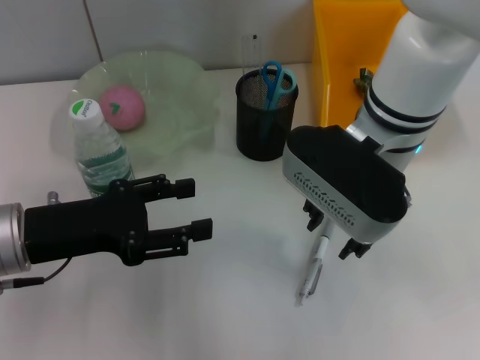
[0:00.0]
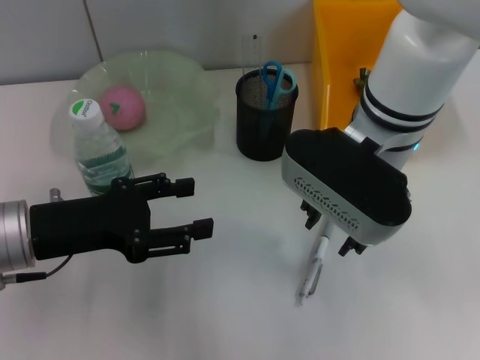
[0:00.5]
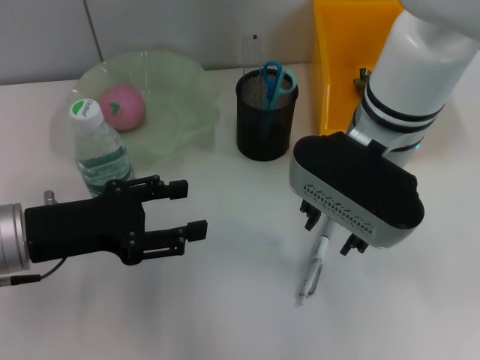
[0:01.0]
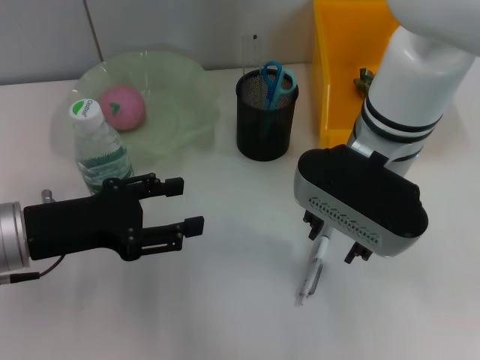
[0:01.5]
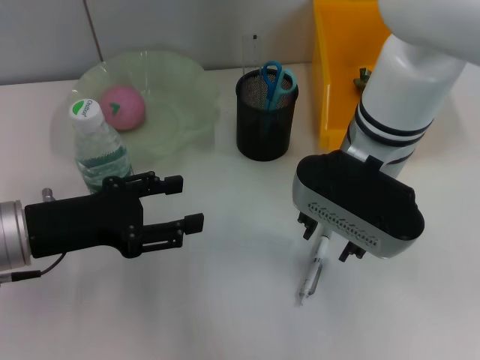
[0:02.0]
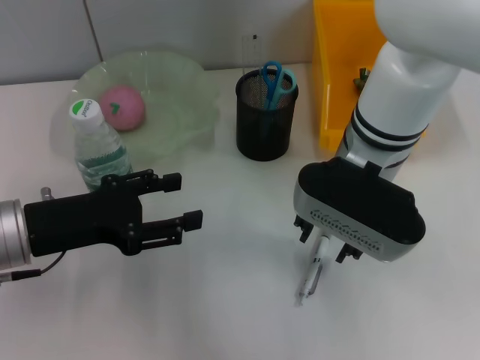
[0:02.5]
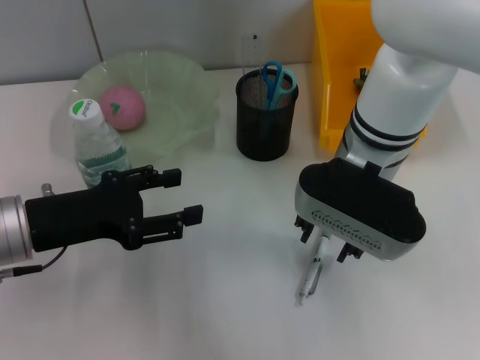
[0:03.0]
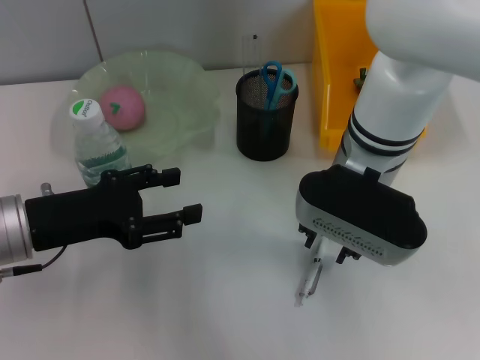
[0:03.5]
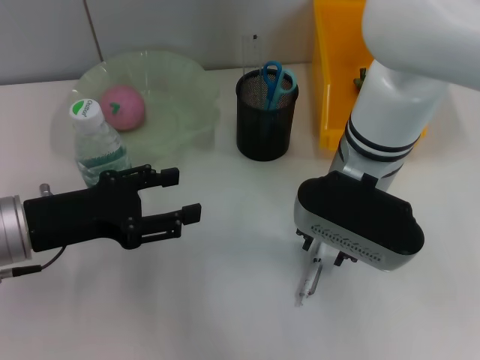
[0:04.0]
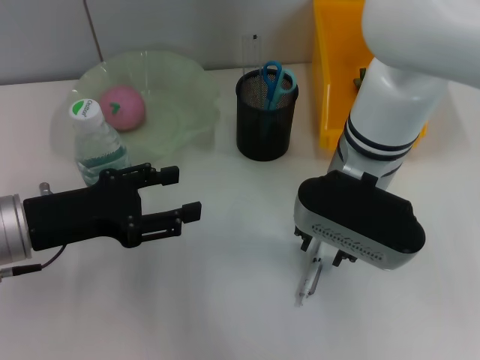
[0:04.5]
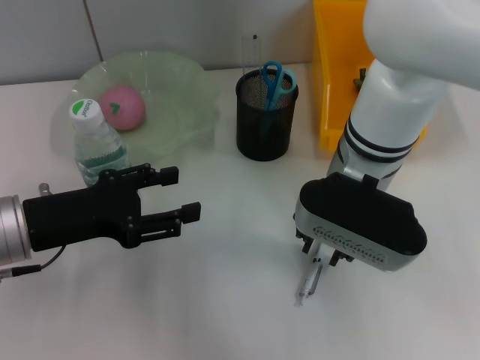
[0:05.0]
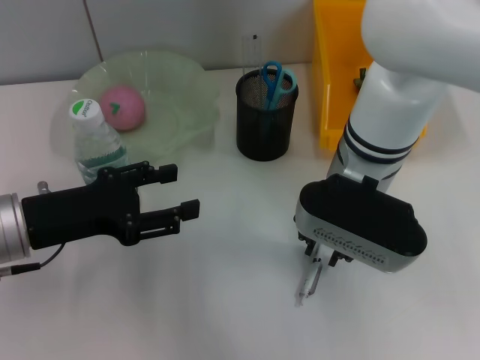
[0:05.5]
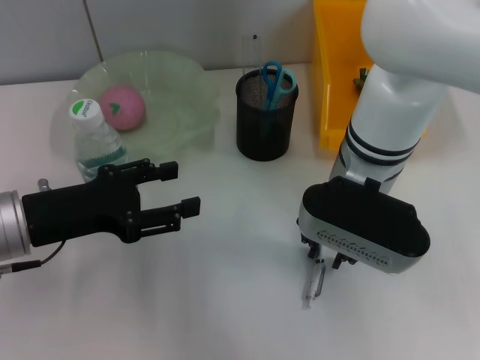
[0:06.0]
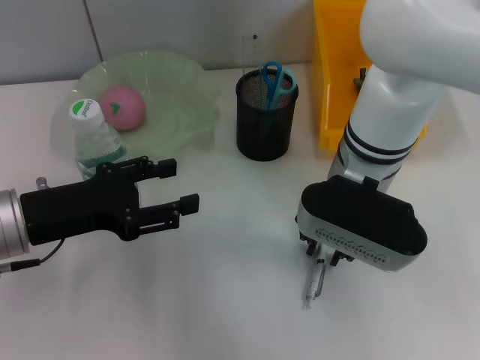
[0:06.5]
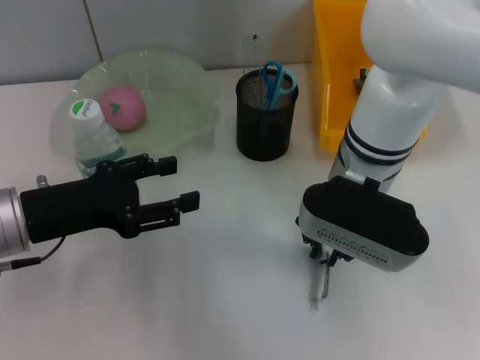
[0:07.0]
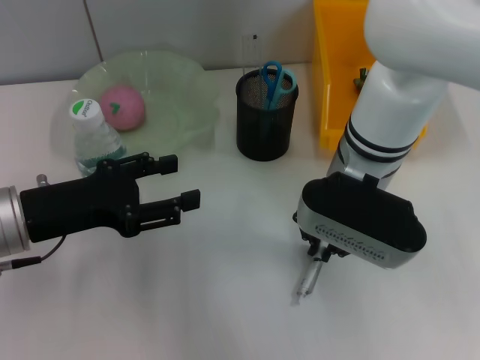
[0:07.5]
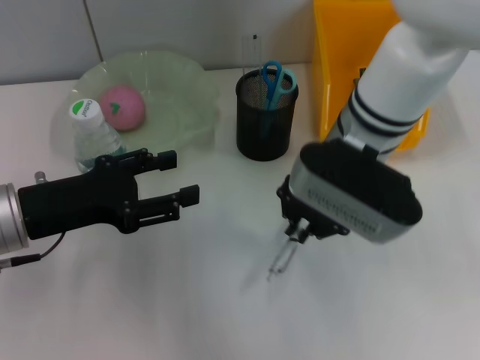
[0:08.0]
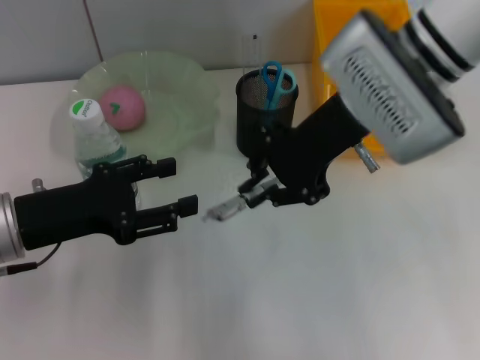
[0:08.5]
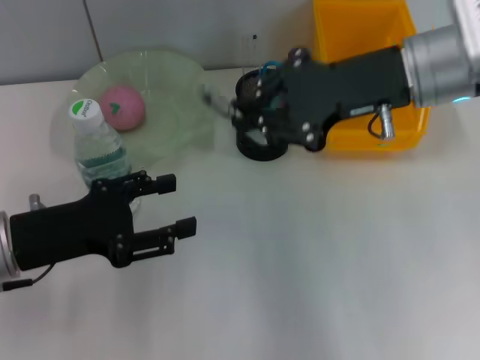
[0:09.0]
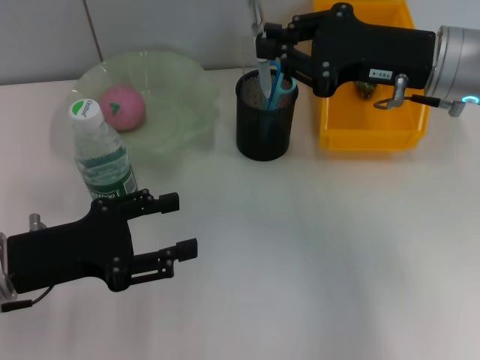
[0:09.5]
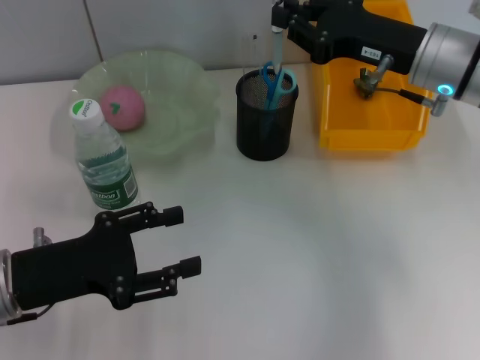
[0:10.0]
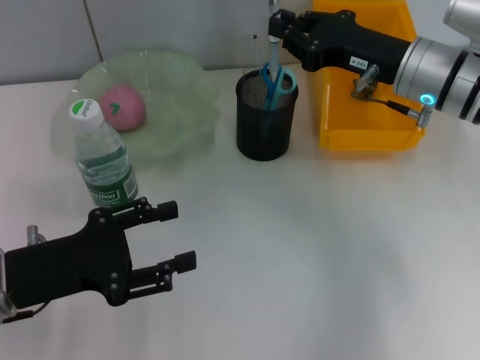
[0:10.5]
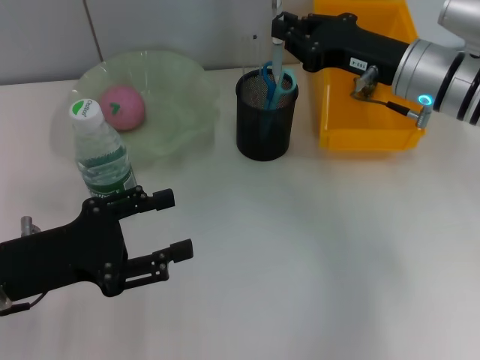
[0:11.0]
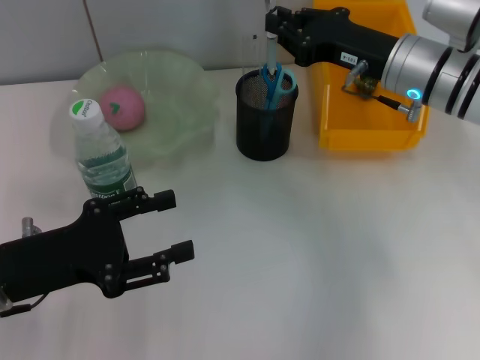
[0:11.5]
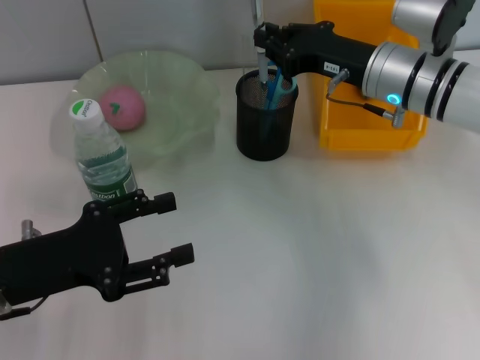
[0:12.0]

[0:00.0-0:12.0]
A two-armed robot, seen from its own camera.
Step, 0:00.0 to 0:07.0: Grab the gray spring-action pen with the right hand.
0:00.0 to 0:04.0: The grippers move only a little.
0:04.0 to 0:06.0: Neither gripper changes place.
0:06.0 to 0:08.0: There are only small adjustments of the grippers.
0:08.0 to 0:10.0: The right gripper travels to the right by approximately 10 cm; the left gripper ends up roughly 5 cm from where it was.
0:10.0 to 0:12.0: The right gripper ends up some 5 cm from where it was.

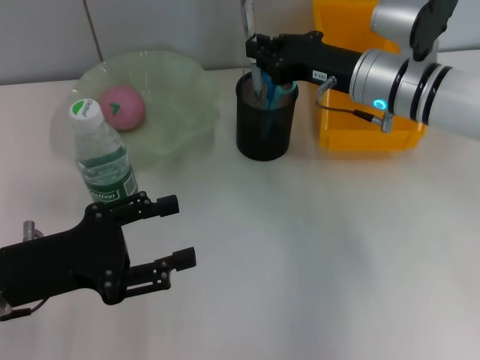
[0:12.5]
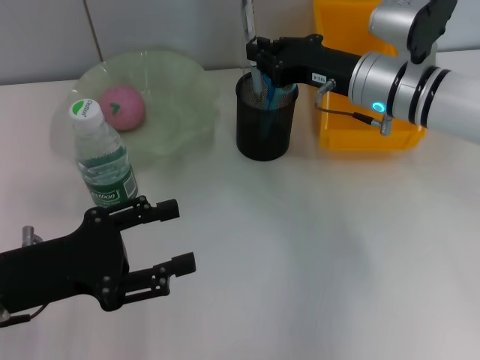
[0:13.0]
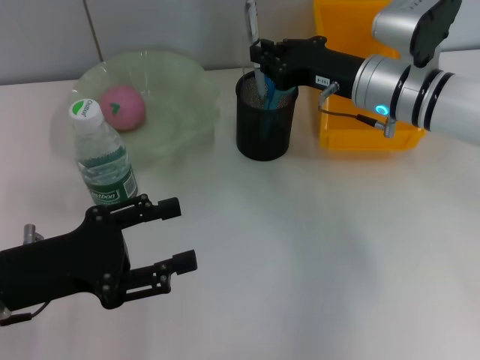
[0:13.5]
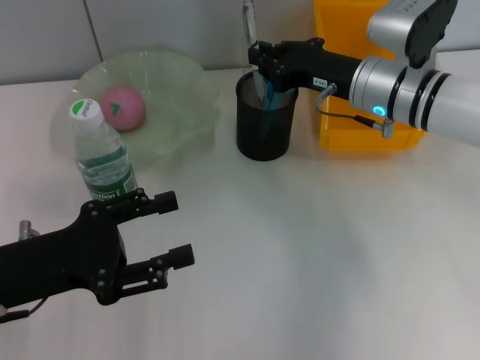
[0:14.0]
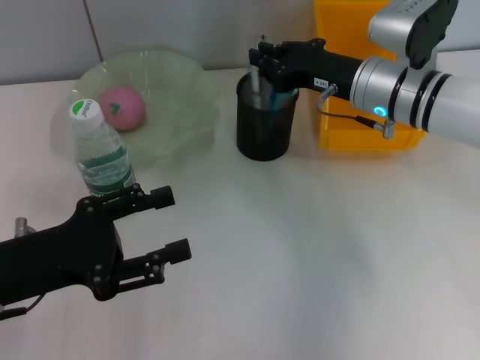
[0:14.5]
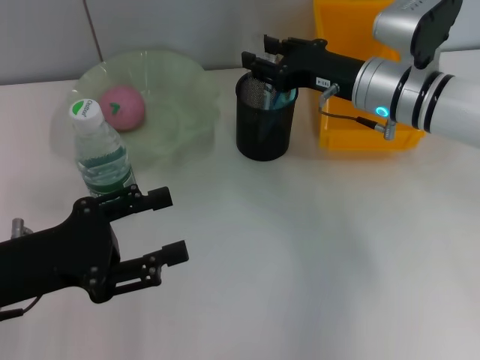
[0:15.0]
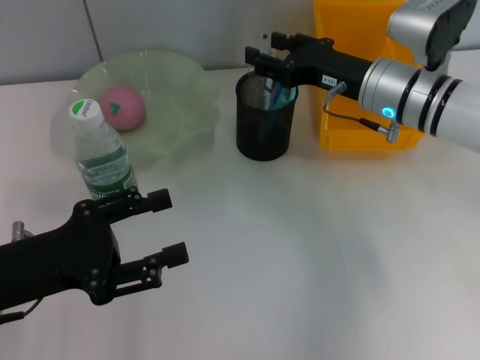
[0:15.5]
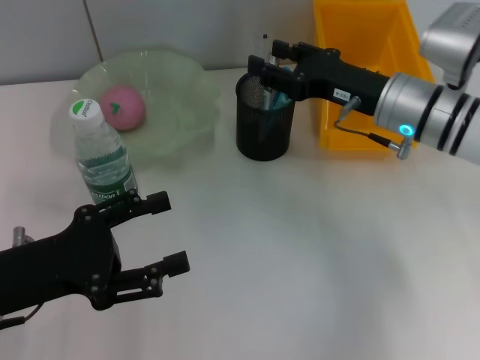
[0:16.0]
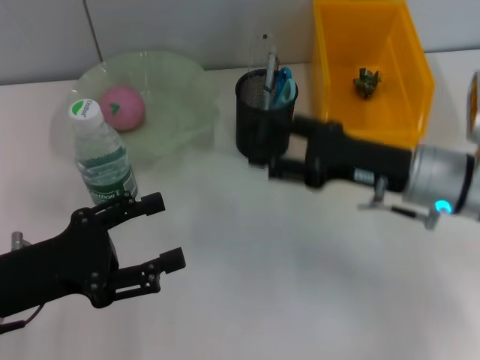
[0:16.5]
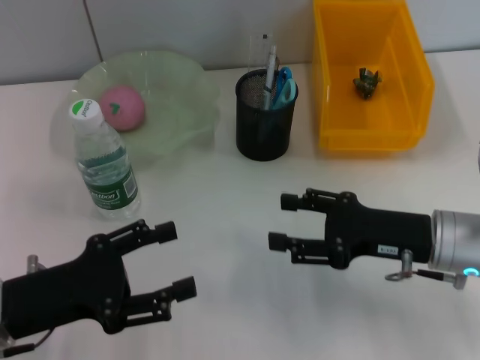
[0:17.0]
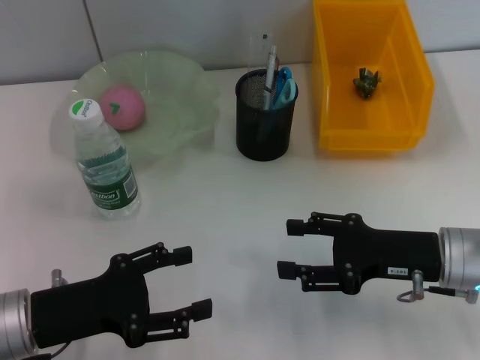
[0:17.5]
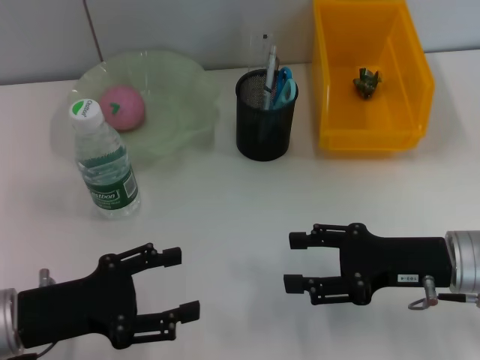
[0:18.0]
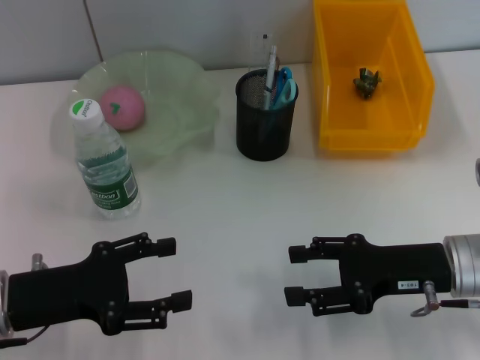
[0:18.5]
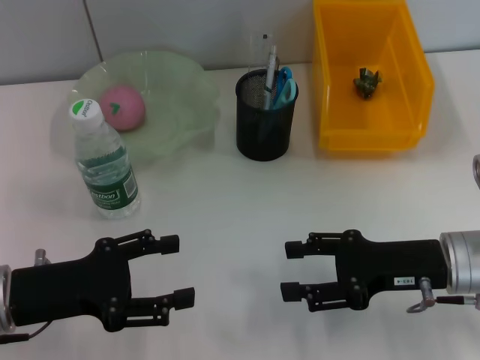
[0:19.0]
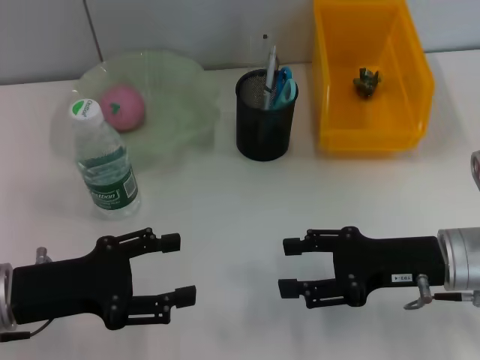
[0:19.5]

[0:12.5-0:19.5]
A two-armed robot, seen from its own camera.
Step, 0:12.5 to 0:14.5: Place the gray spring-action pen into the pen holder with the right hand.
0:12.5 to 0:14.5: Neither gripper changes place.
0:14.5 to 0:16.0: The right gripper opens.
0:16.0 to 0:17.5: The right gripper shifts about 15 cm backward and downward.
0:17.5 to 0:19.5: The grippers stay close to where they were, moving slightly.

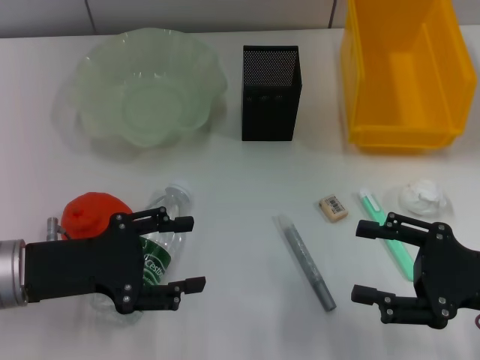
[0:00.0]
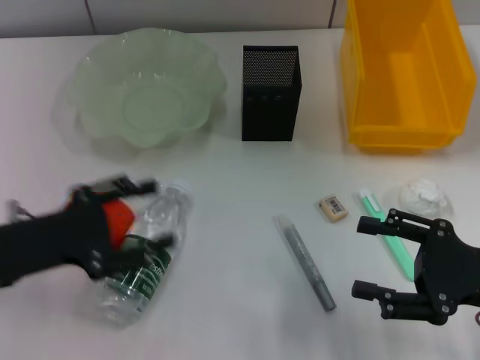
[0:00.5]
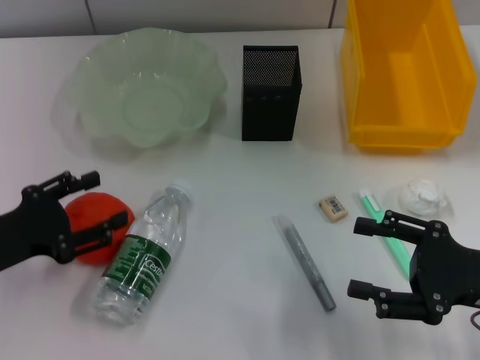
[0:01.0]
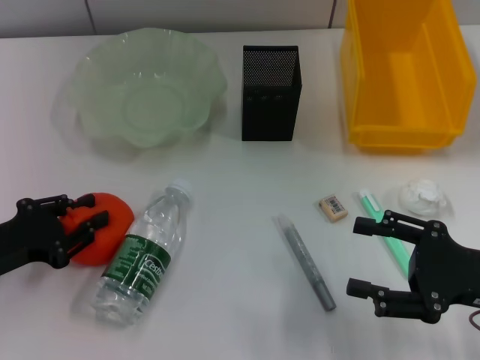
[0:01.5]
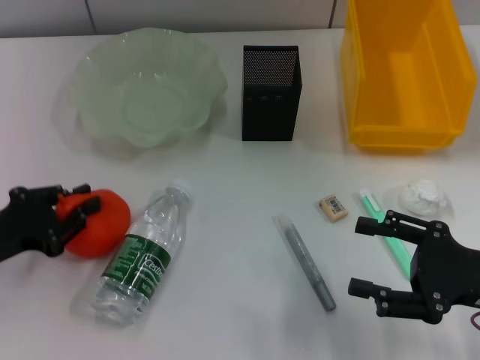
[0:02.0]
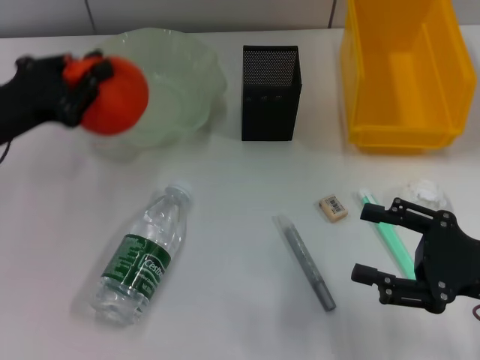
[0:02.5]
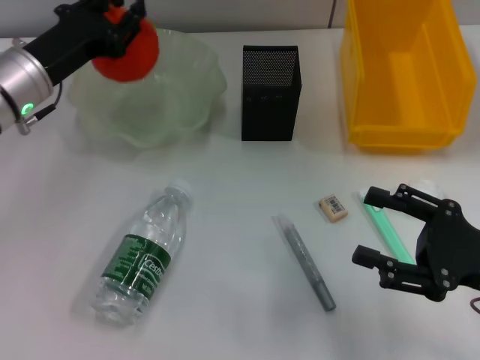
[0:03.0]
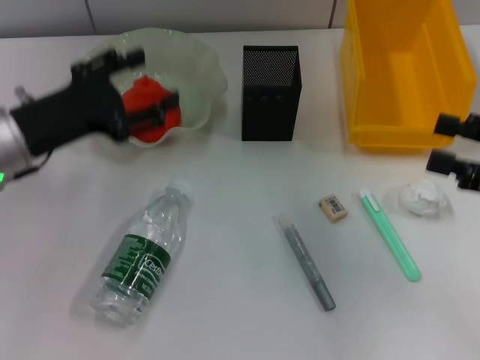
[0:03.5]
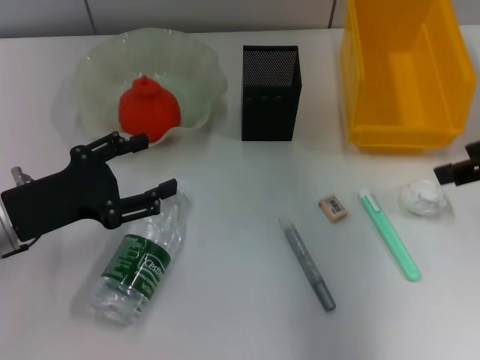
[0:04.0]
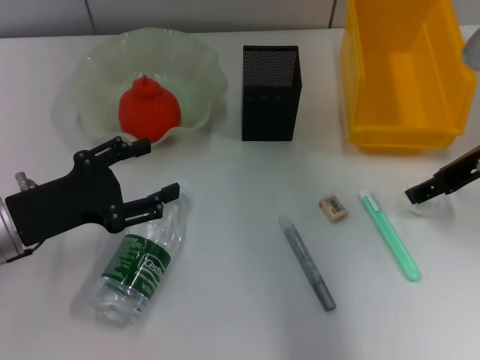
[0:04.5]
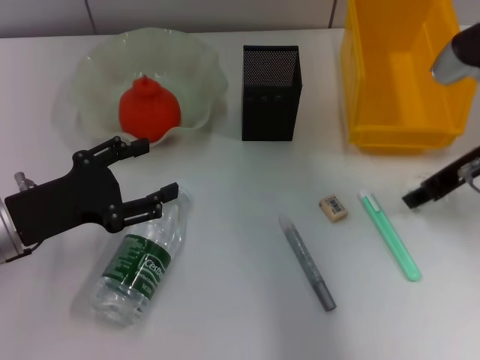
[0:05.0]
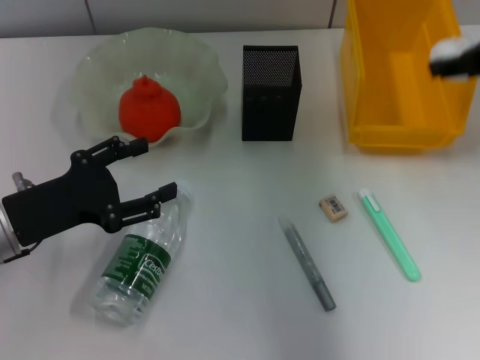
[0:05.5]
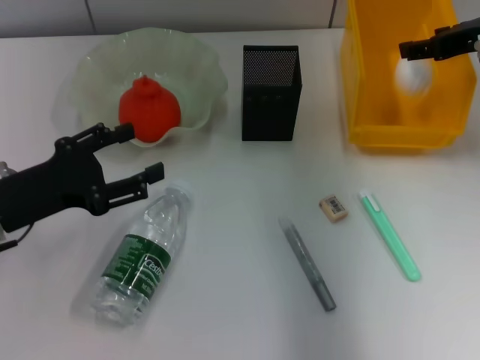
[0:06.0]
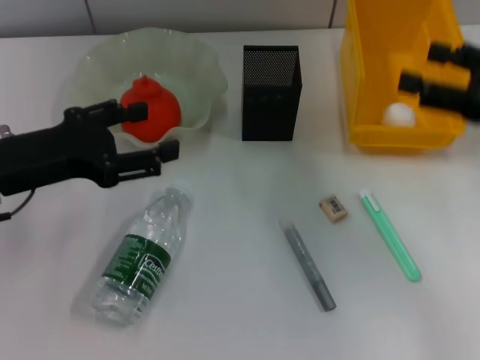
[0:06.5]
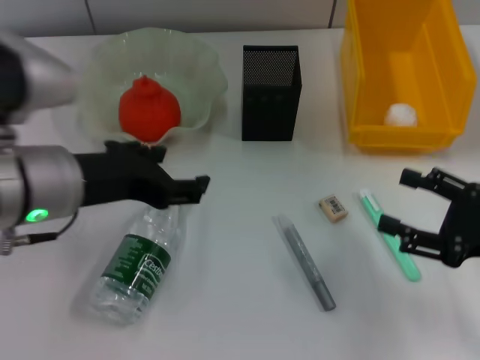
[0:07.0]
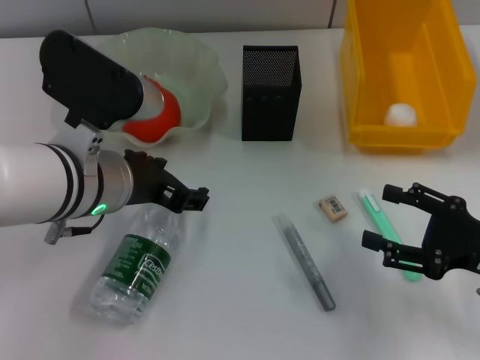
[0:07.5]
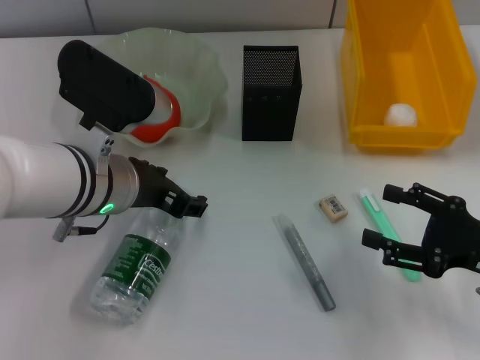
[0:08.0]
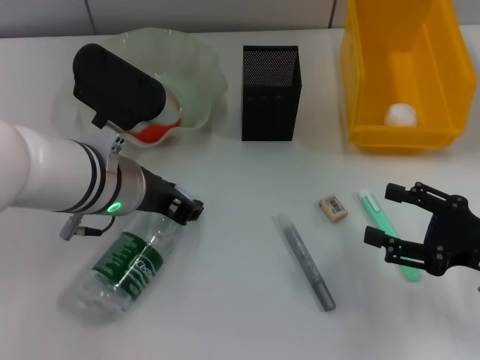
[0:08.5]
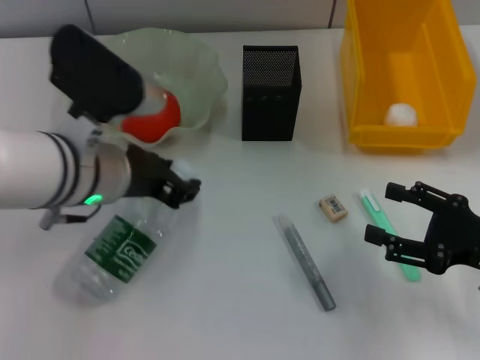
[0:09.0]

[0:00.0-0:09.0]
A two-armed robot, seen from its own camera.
Step, 0:00.0 to 0:01.5: Grab the orange with the left hand.
Step, 0:02.0 to 0:03.0: Place the orange into the fruit bowl with the left hand.
Step, 0:03.5 to 0:04.5: Grab the paper ball with the right hand.
Step, 0:05.0 to 0:06.0: Place the paper ball into the trash can with the right hand.
Step, 0:06.5 to 0:08.5: Grab the water bottle with the left hand.
0:00.0 to 0:02.0: The left gripper is displaced to the left by about 5 cm, and closes.
0:02.0 to 0:04.5: The right gripper moves forward and upward, approximately 15 cm; the left gripper moves to the right, about 5 cm, goes forward and returns, some 15 cm each way, and opens.
0:04.5 to 0:07.0: The left gripper travels upward and to the right by about 15 cm, while the right gripper shifts approximately 15 cm backward, downward and to the right, and closes and opens again.
0:07.0 to 0:09.0: The left gripper moves roughly 5 cm, and closes its fingers.
